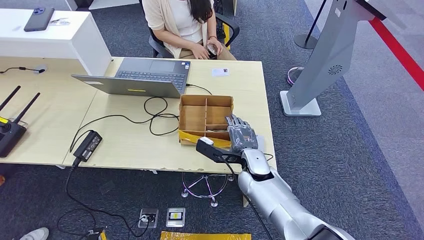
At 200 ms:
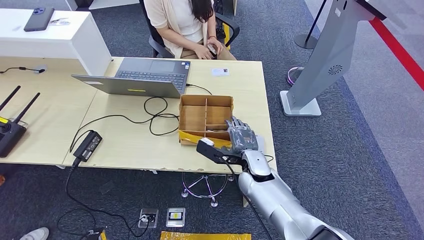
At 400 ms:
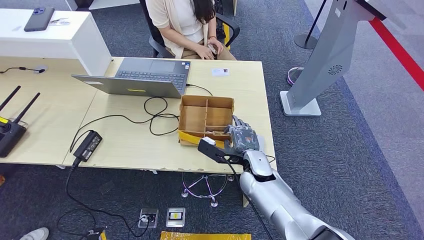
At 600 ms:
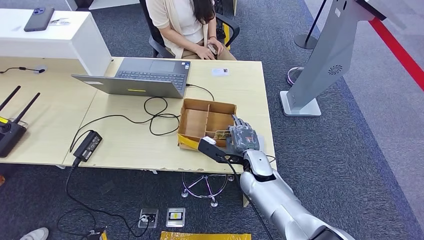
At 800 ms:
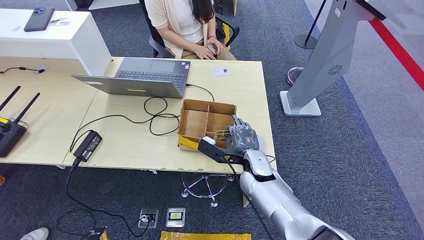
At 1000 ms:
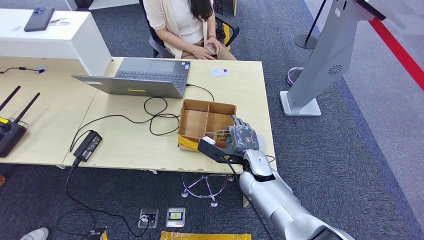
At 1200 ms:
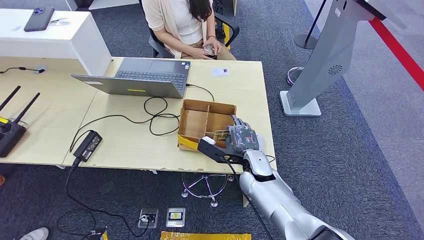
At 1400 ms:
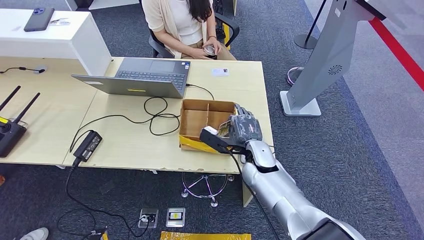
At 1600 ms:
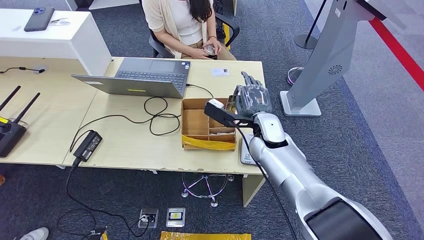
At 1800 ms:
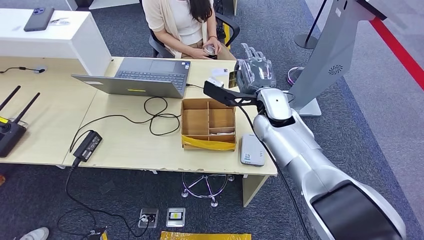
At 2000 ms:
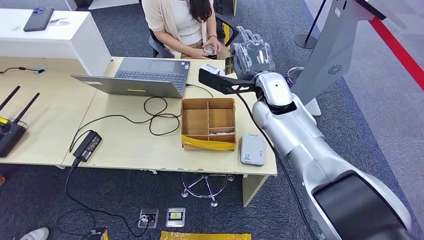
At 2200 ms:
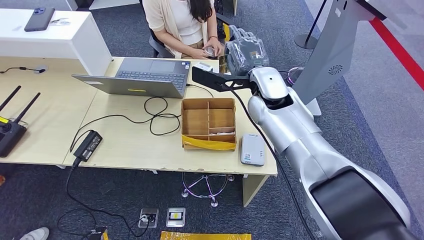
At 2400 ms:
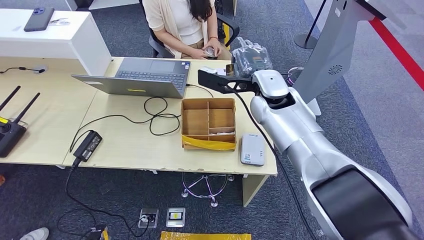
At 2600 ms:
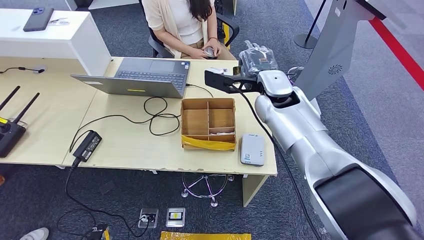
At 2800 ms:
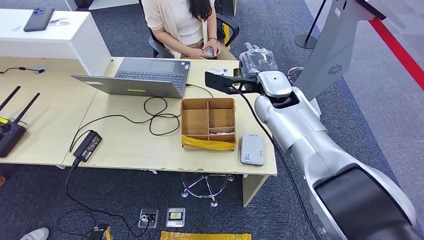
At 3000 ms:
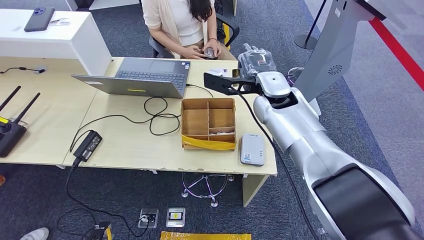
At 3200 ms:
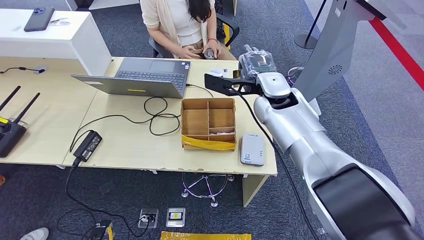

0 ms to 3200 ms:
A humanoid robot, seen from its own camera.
Step, 1600 ms to 3200 ms: Hand the room key to the person.
0 ms to 1600 ms: The right hand moves upward and forward, some 10 cm.
1600 ms to 3200 ms: The right hand goes some 10 cm upward.
